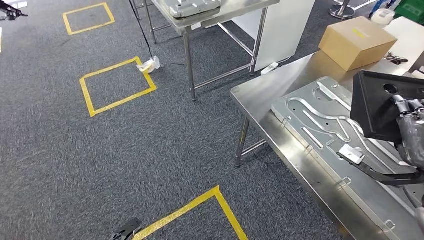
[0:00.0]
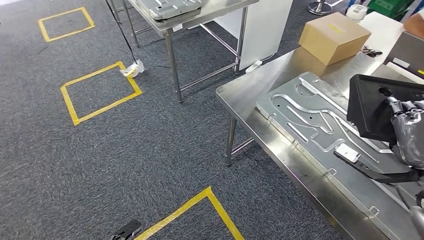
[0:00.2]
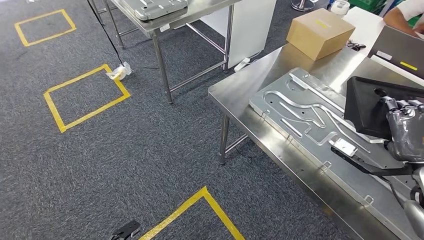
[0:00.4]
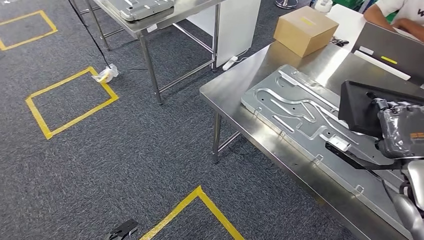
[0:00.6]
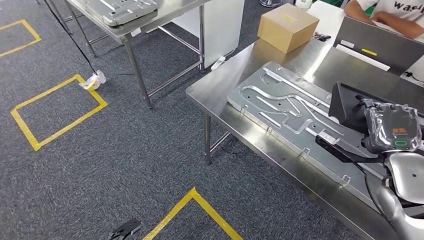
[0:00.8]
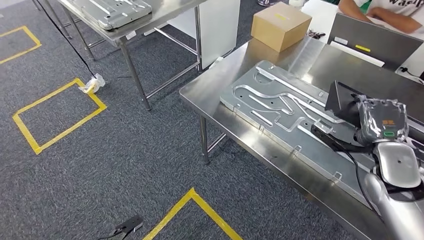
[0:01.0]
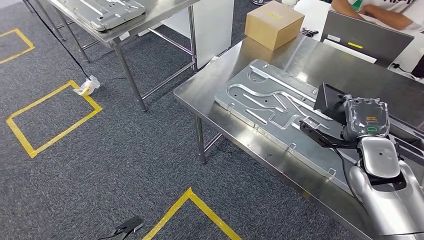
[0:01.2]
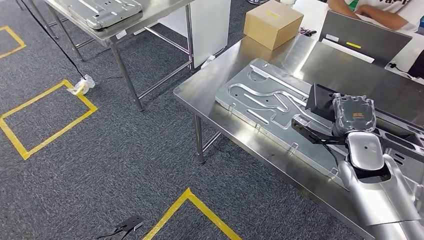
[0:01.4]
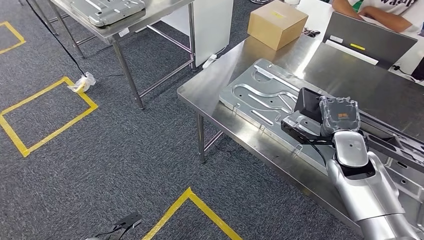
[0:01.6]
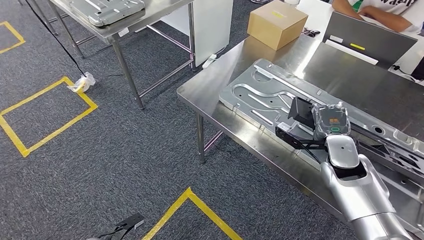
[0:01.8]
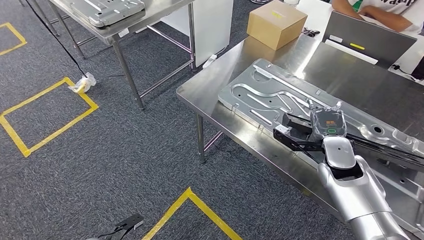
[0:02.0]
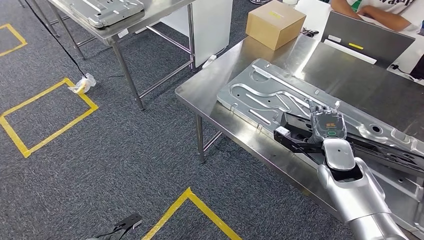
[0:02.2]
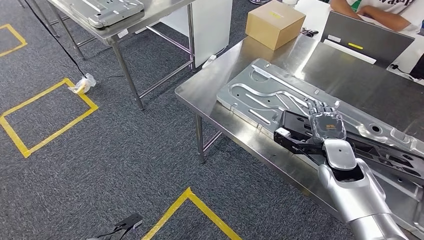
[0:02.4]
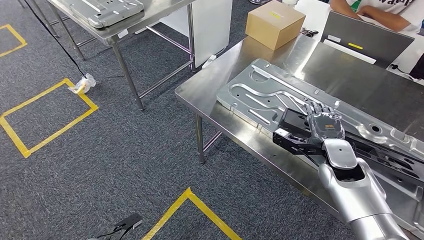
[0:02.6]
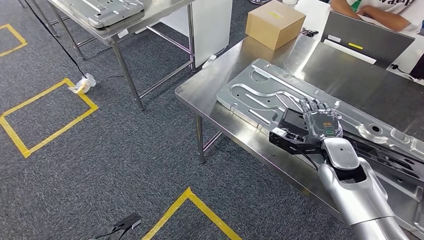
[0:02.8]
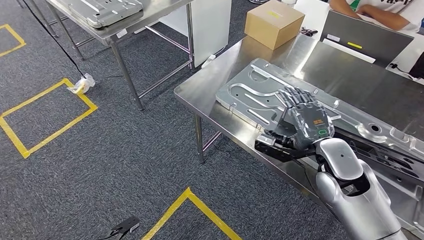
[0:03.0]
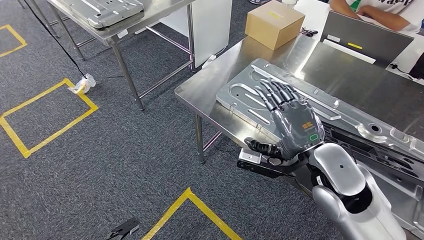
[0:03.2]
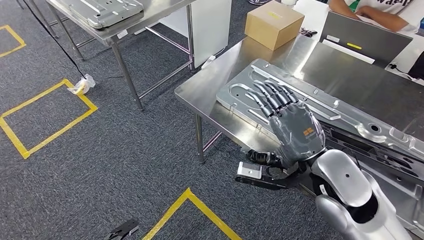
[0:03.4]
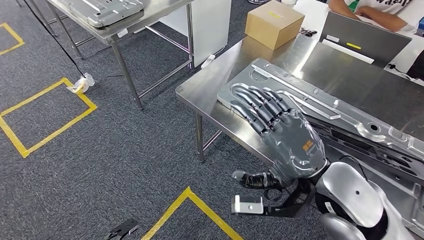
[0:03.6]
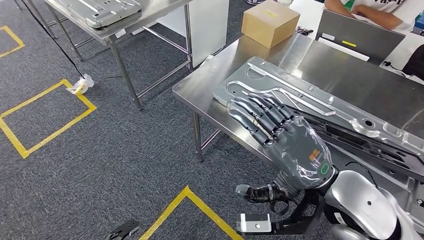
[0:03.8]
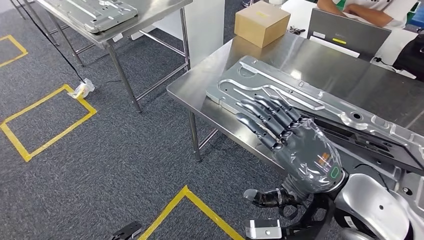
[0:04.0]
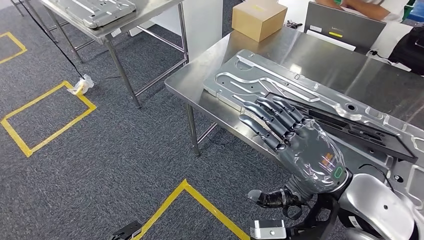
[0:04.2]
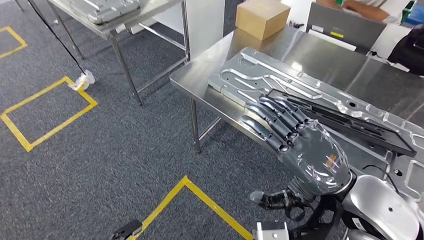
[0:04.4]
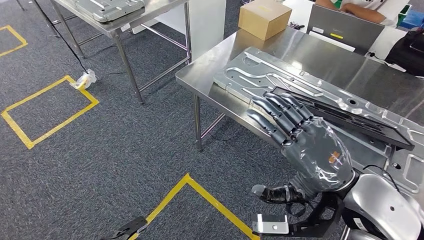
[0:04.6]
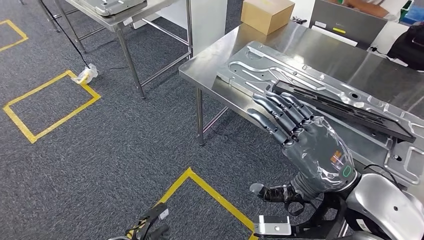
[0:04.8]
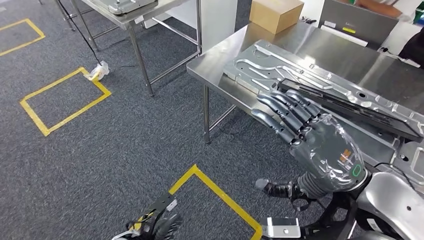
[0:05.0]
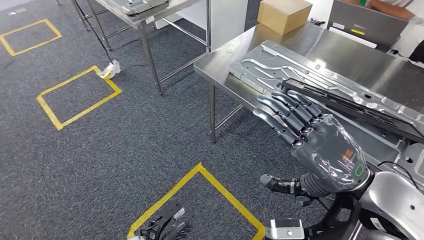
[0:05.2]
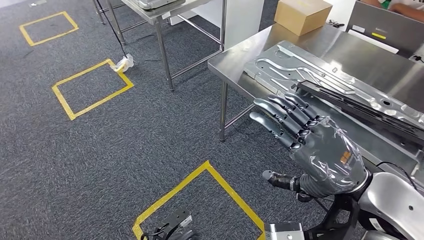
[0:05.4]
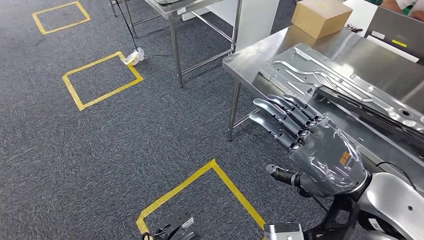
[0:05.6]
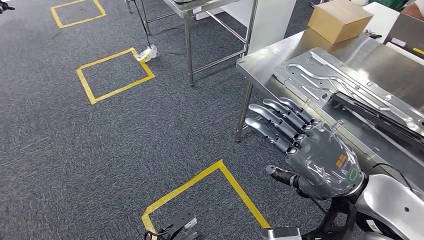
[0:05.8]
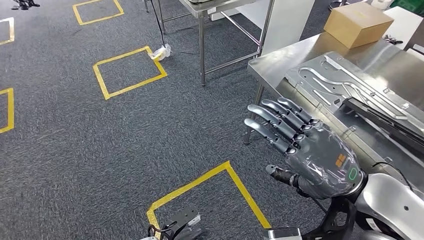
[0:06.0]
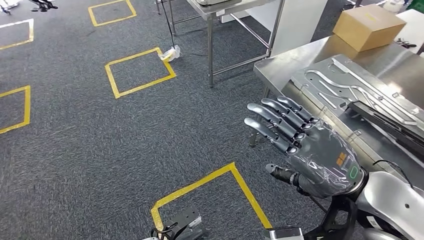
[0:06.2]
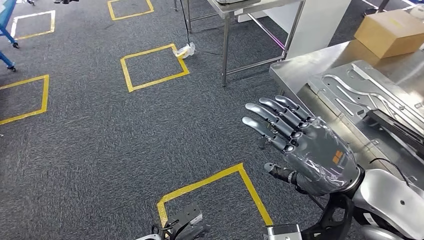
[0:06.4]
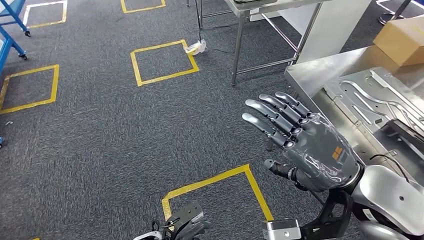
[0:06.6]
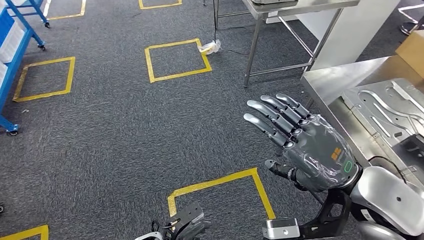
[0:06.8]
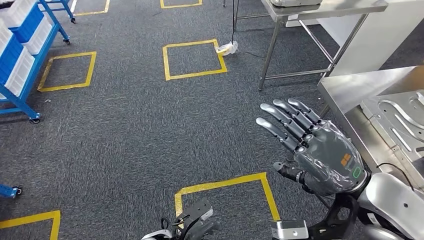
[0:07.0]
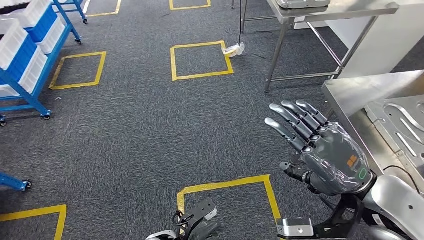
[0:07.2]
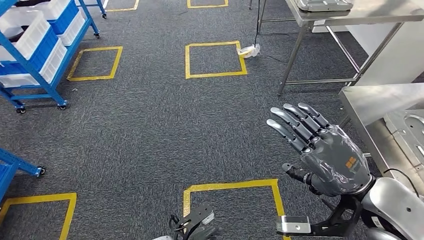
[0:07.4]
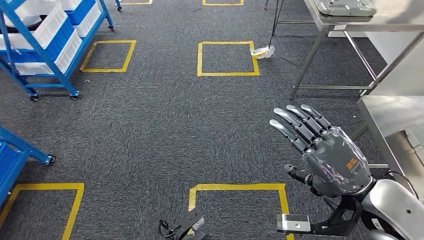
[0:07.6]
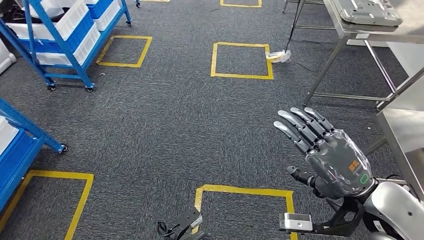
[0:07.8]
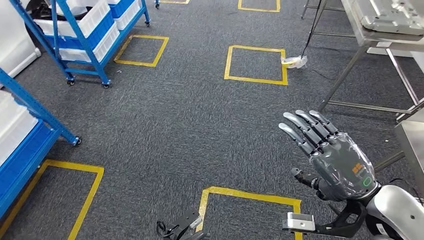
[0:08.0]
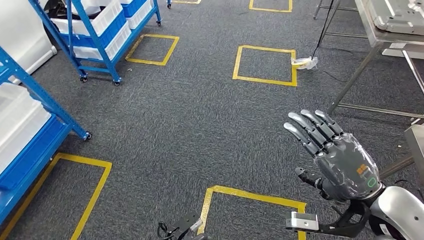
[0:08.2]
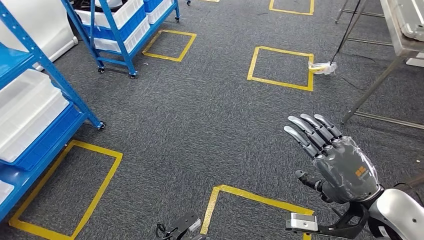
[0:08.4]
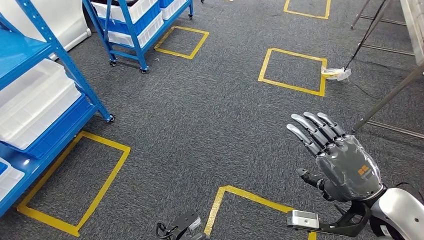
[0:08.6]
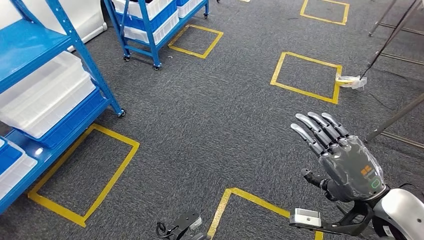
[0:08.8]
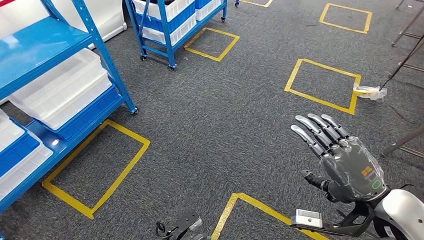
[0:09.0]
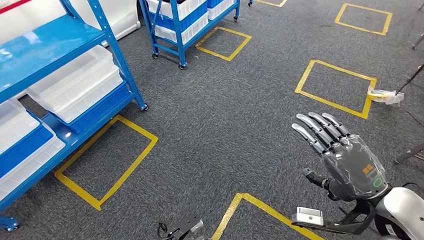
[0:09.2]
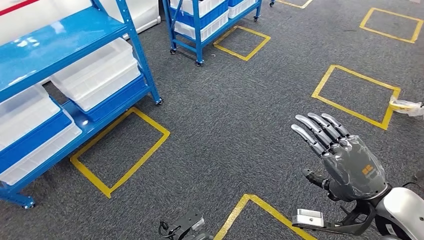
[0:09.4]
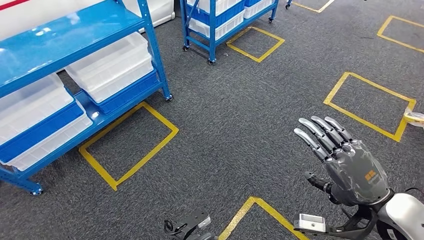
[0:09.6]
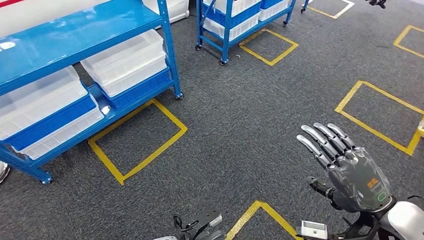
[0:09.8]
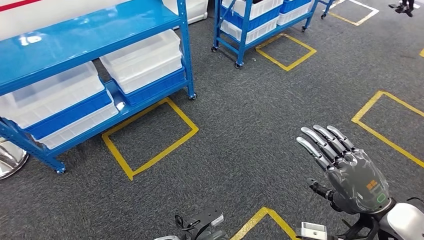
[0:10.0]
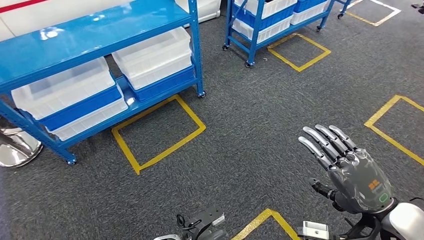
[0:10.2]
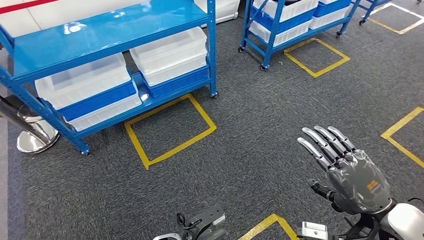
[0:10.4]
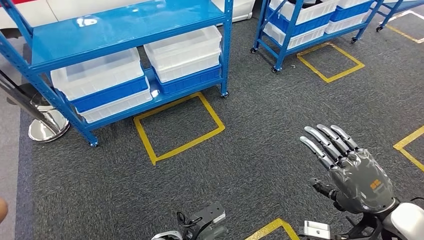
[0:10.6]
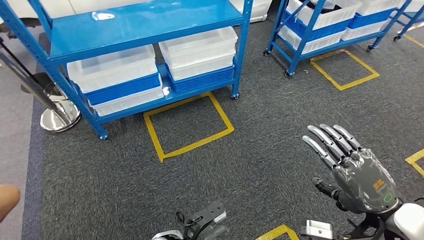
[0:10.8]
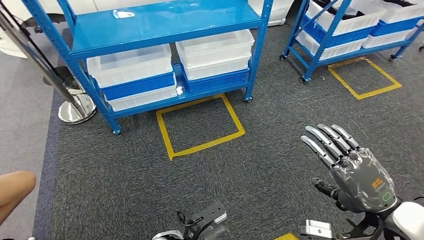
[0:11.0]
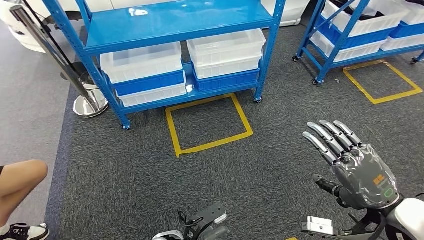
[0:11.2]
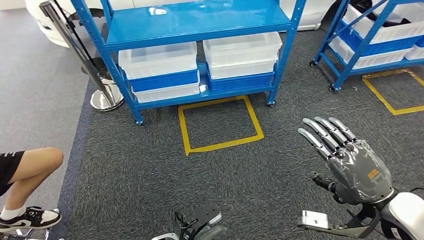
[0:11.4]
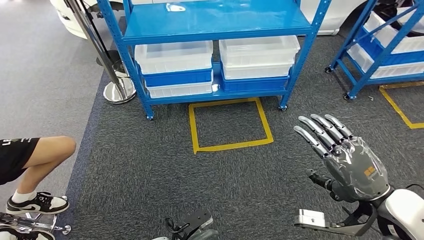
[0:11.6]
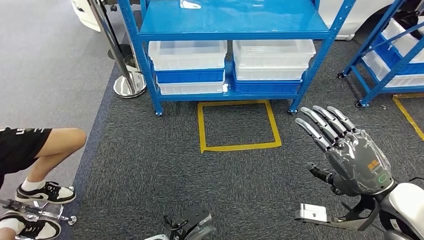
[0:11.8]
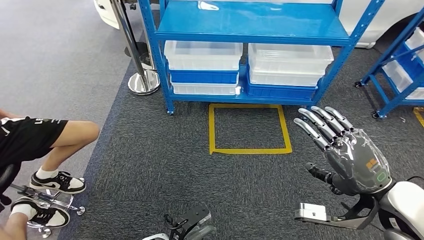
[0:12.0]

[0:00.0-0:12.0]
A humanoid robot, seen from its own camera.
Step, 0:00.8 to 0:05.0: Insert the large material into the corresponding slot on the workbench.

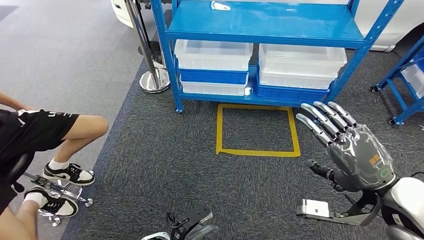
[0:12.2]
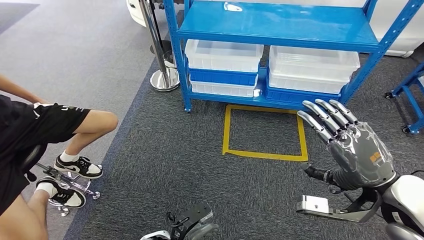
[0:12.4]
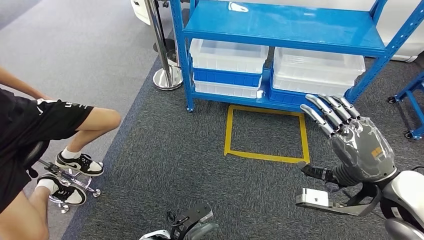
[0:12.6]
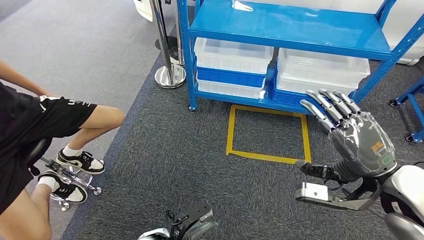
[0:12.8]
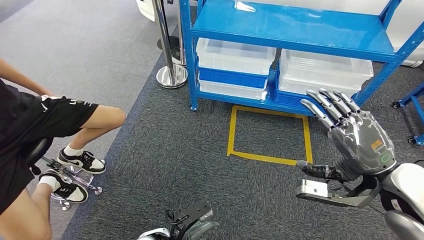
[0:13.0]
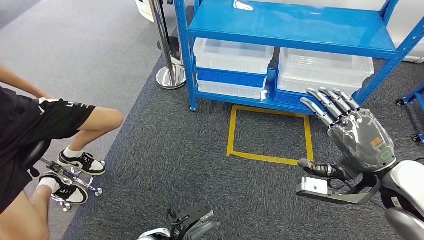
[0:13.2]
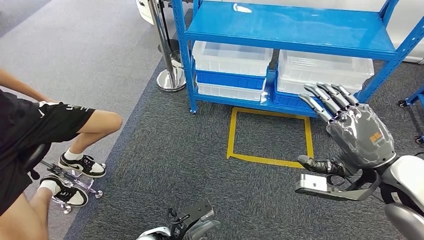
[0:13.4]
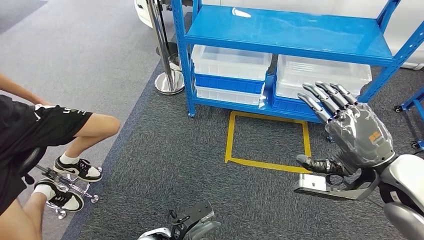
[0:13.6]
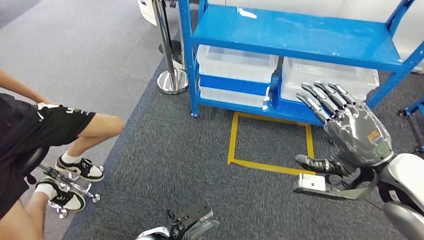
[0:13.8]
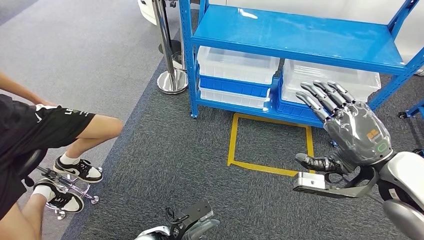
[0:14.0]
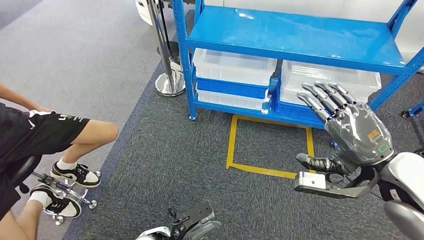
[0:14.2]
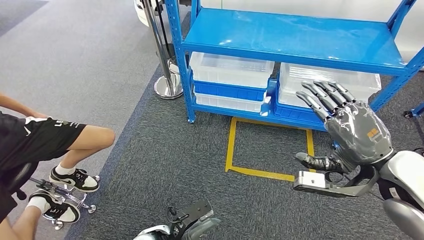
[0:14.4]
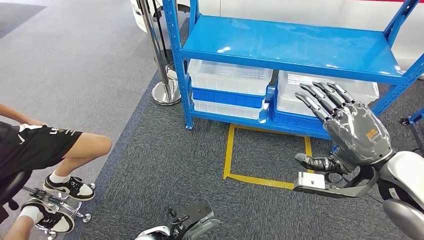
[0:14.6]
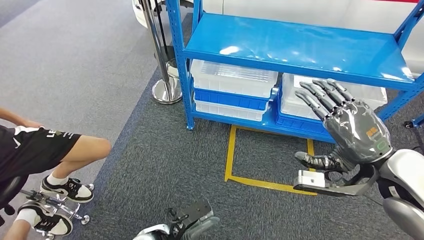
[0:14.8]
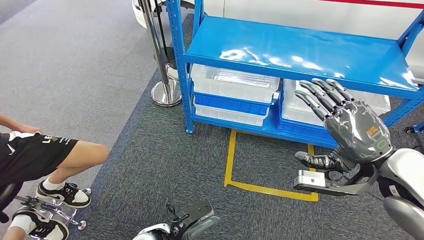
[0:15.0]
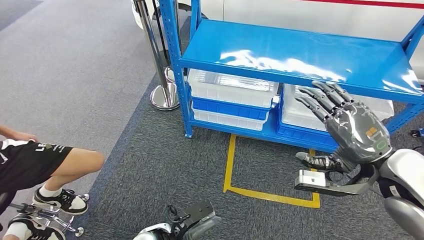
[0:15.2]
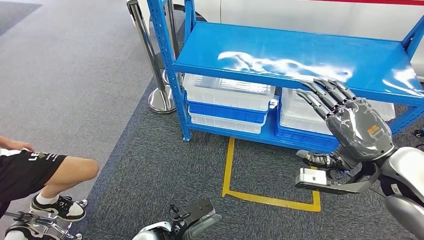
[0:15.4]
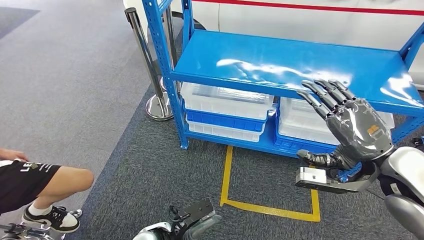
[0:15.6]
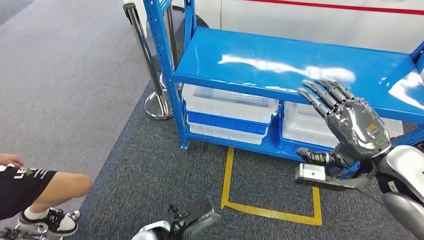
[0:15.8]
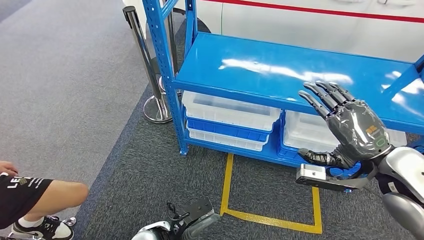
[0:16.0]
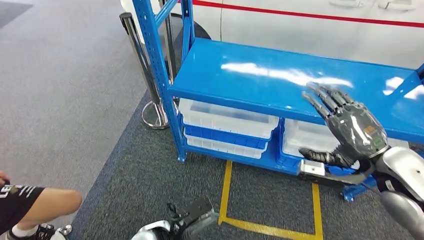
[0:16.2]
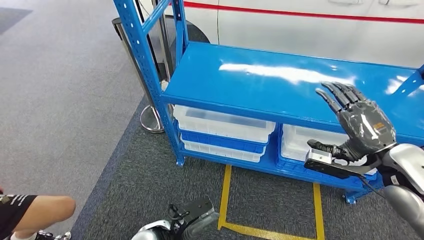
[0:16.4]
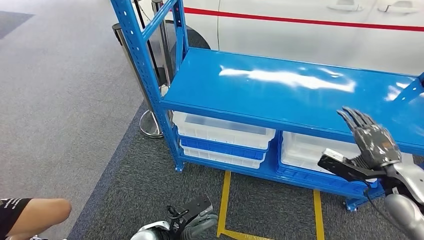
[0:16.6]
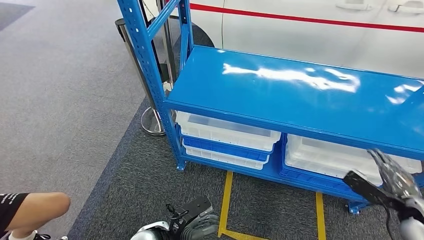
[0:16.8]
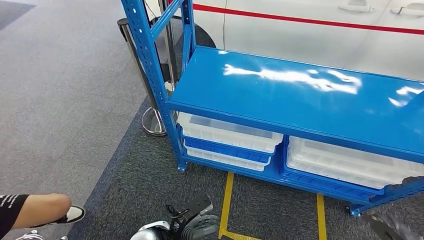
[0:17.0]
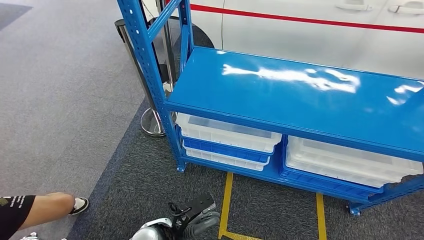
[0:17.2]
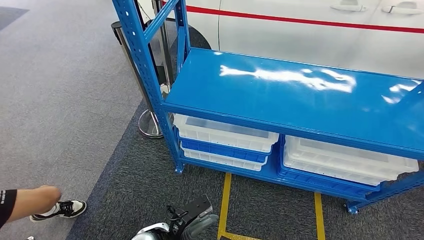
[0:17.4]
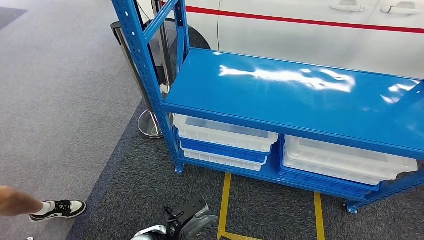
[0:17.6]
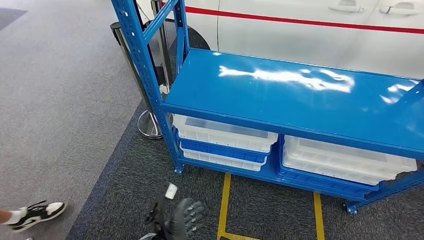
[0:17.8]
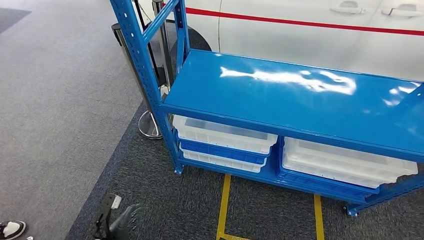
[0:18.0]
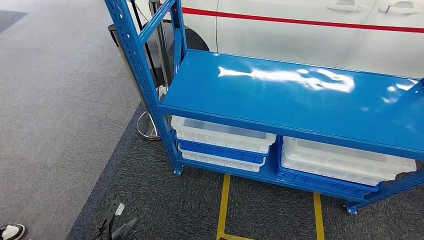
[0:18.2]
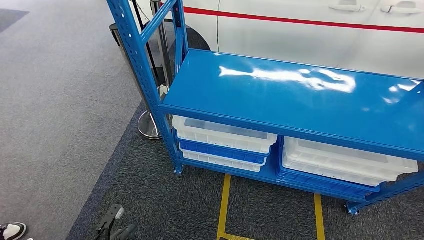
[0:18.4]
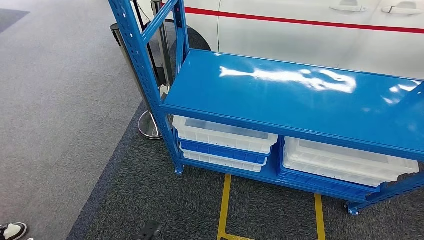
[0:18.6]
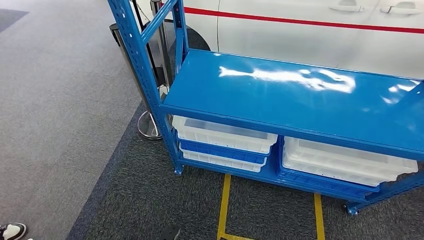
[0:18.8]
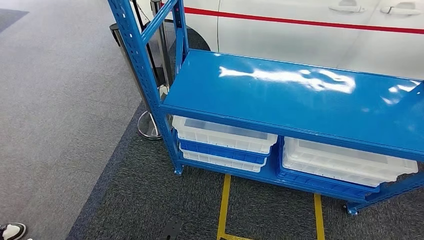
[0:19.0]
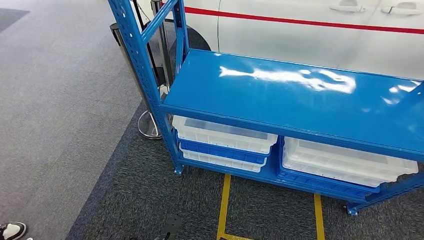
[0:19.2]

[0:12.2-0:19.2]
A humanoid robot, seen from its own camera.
Step, 0:12.2 to 0:15.8: Move to the initial position of the shelf.
0:17.8 to 0:19.2: The right hand moves to the left, approximately 25 cm. The left hand travels backward and downward by approximately 10 cm, and travels to the left and back again, approximately 20 cm each way.
